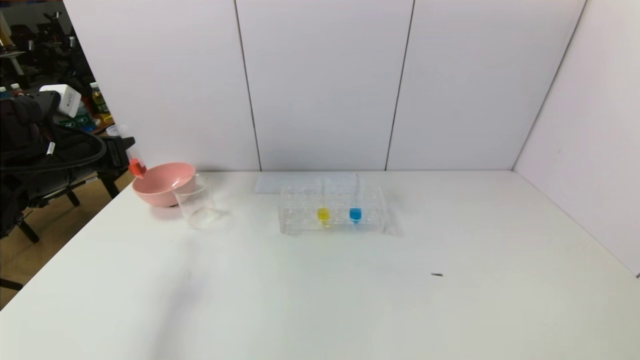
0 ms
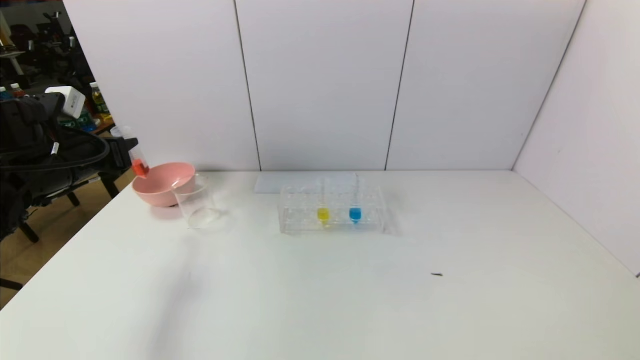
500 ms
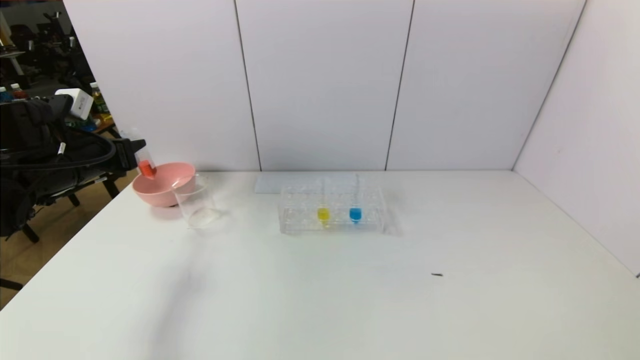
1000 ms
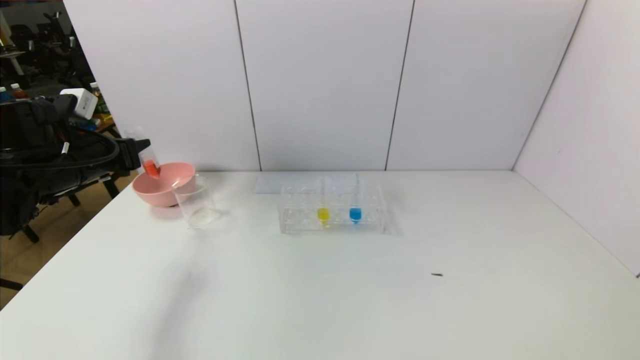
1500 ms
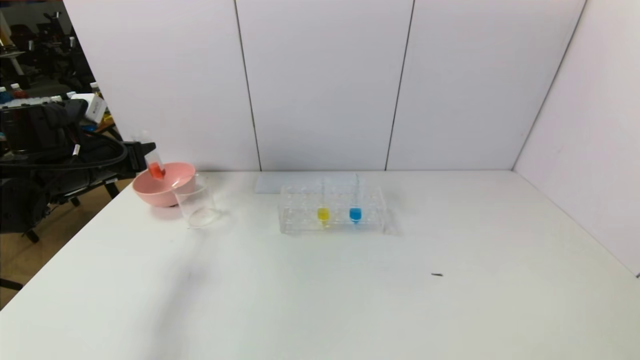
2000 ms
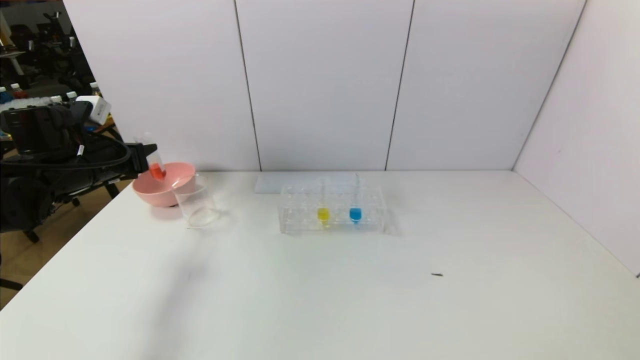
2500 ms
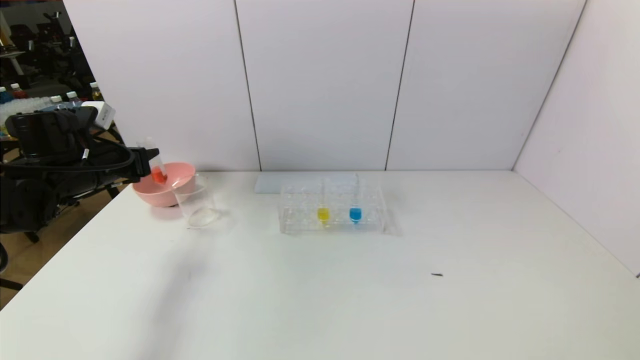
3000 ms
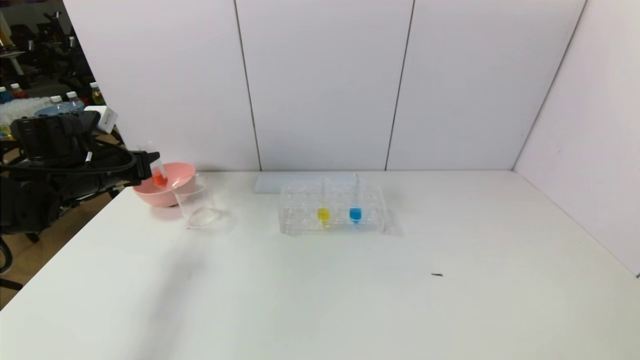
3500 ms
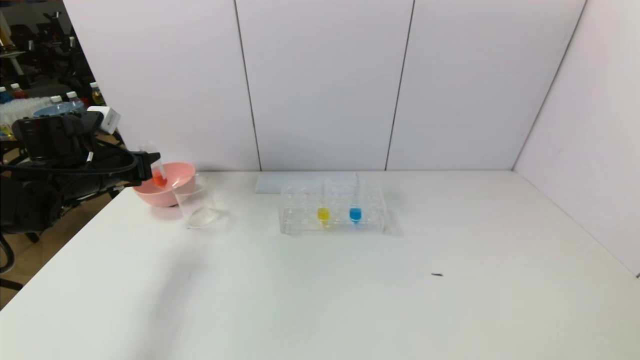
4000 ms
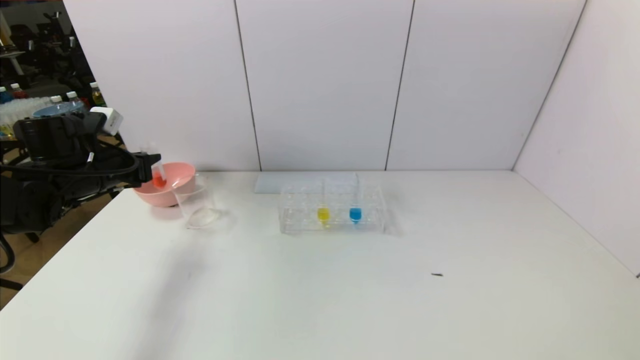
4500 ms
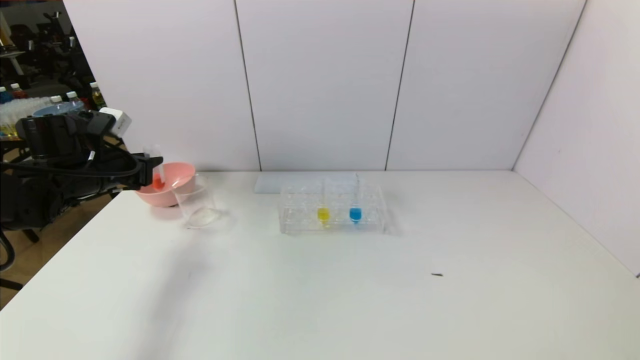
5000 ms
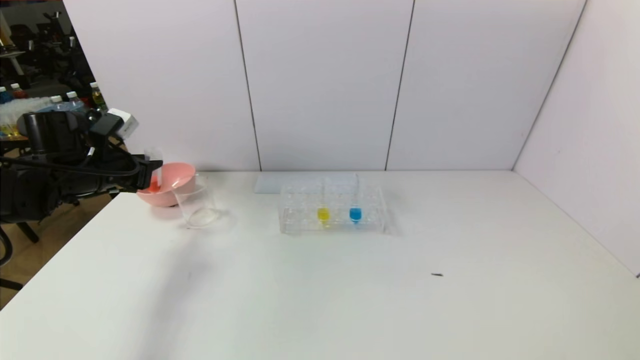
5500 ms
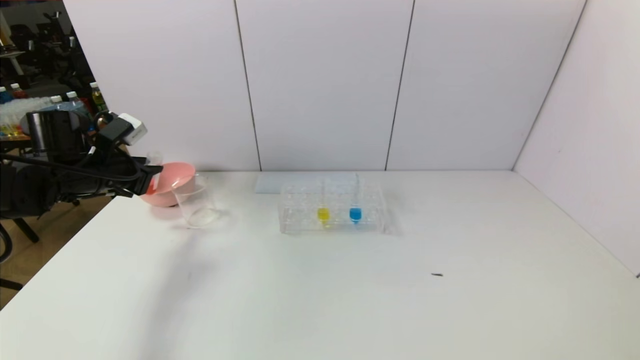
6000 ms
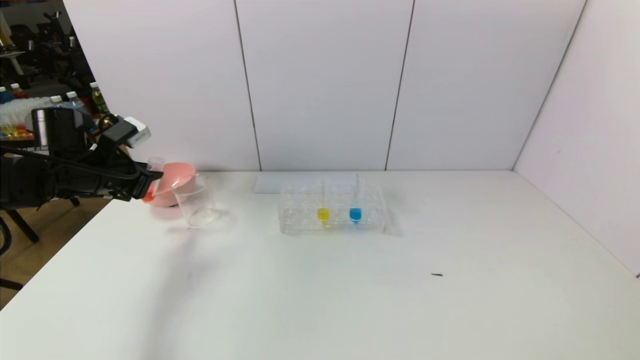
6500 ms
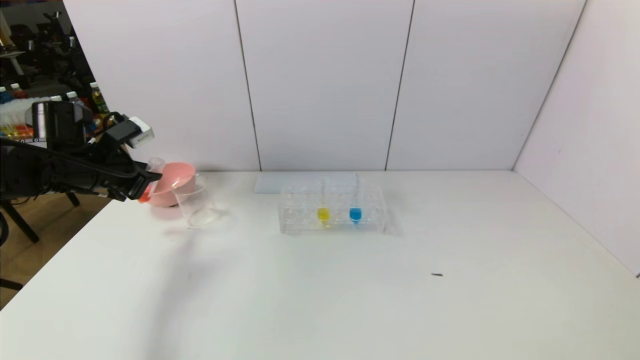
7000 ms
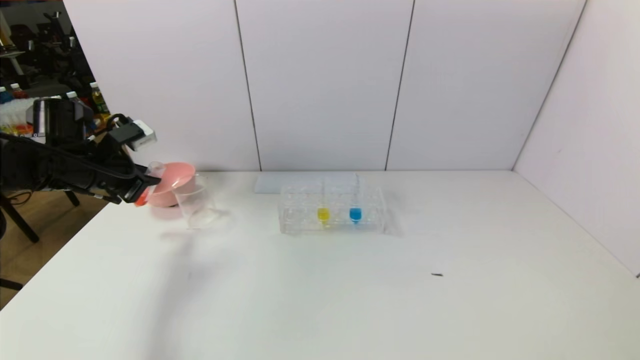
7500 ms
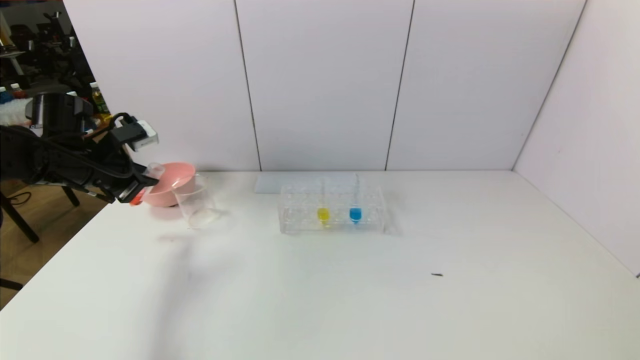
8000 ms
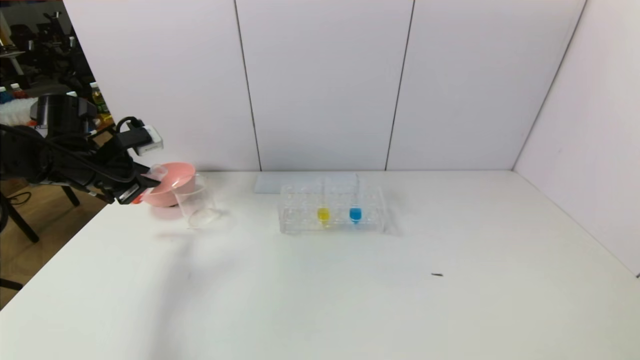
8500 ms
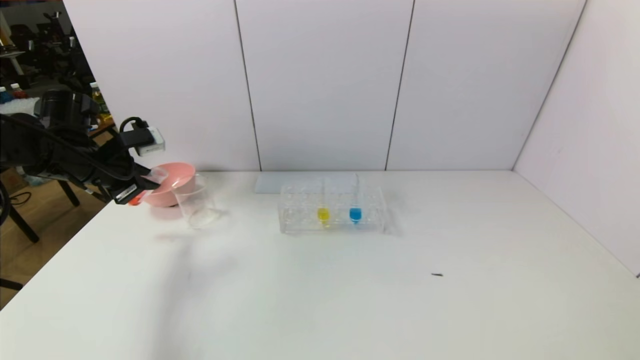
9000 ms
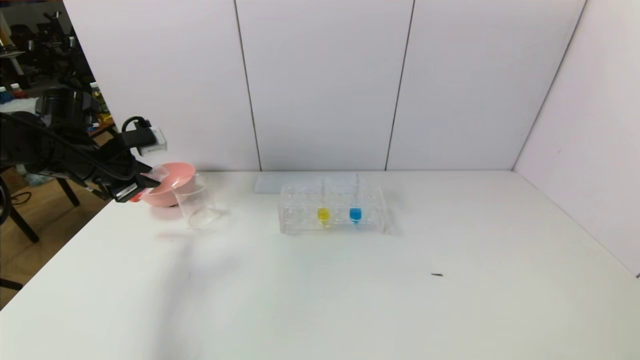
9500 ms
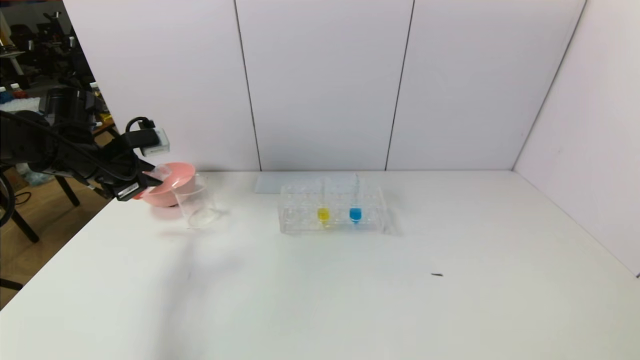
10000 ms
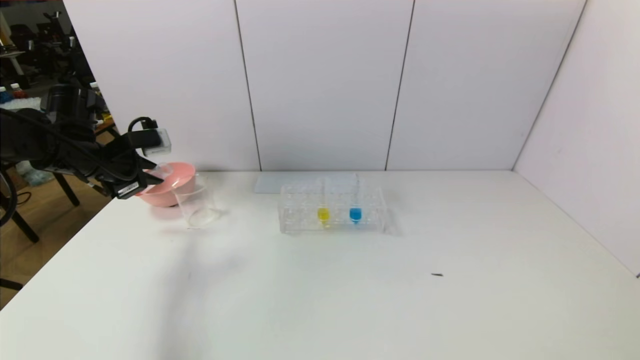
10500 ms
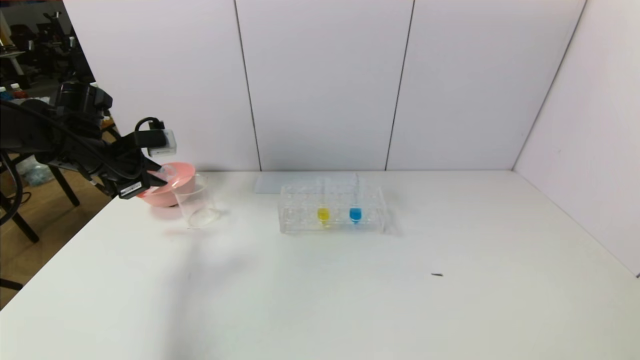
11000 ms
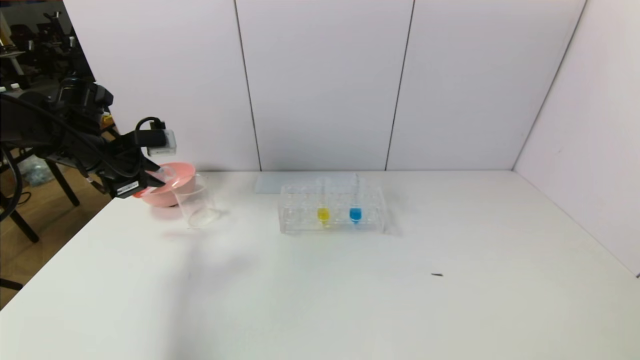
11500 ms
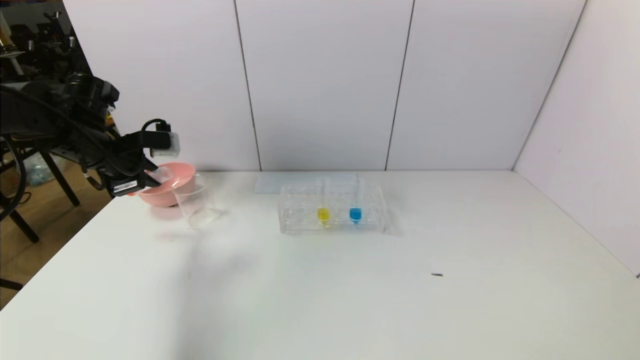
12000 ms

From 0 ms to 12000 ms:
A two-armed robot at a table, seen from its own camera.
Task of the whole recording: pick up the test tube with yellow pigment and the test tube with red pigment by grippers and pour them into the beaker.
From 0 ms to 4000 ms: There are only small adjustments of the grippers.
From 8000 ms to 10000 ms: The grippers move only a little.
From 10000 ms to 12000 ms: There are only small adjustments of the grippers.

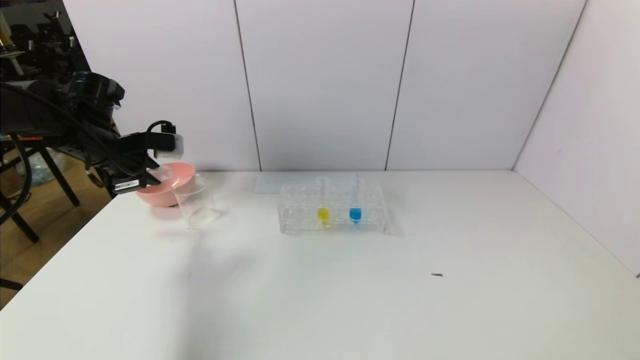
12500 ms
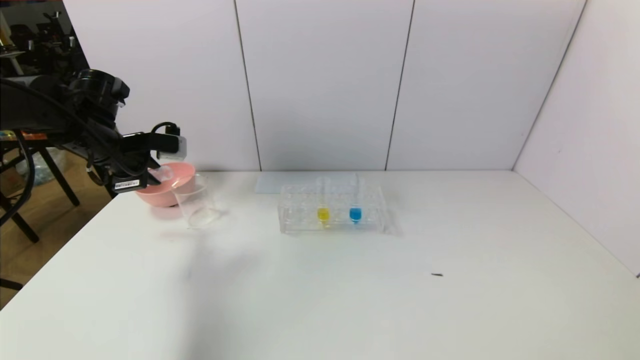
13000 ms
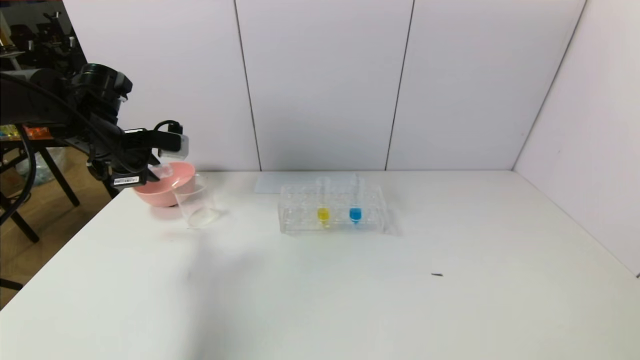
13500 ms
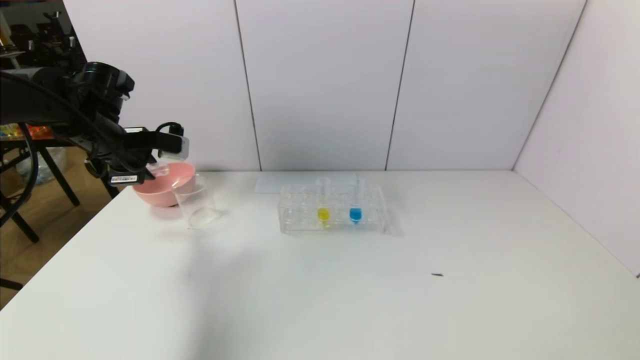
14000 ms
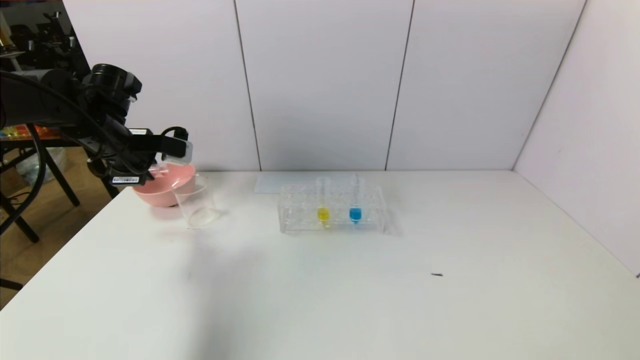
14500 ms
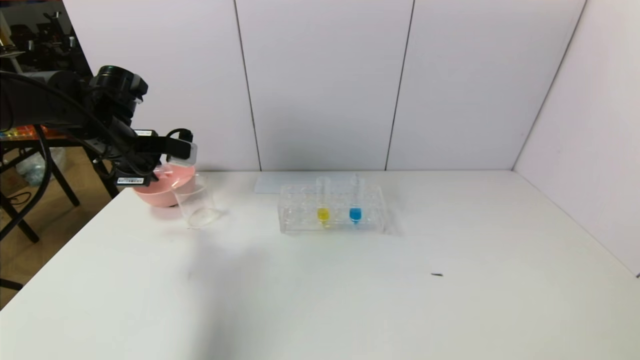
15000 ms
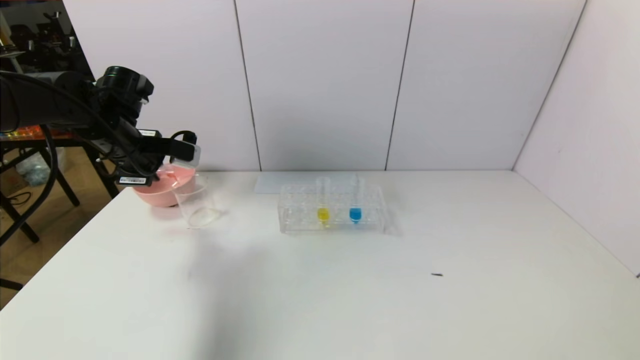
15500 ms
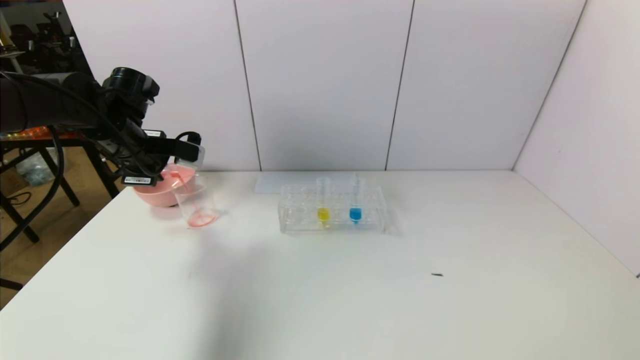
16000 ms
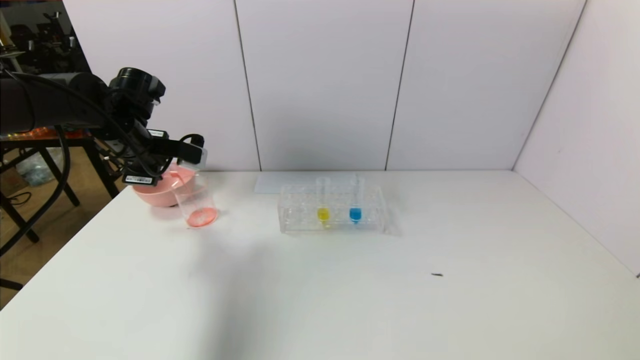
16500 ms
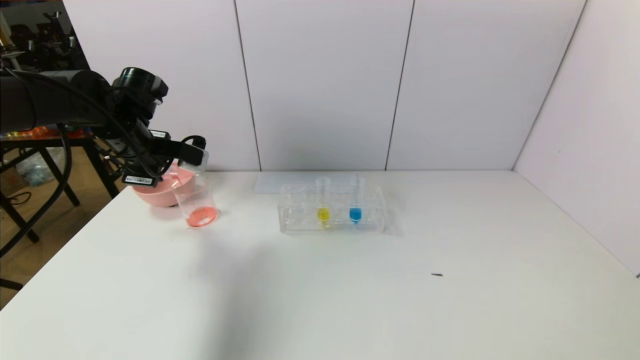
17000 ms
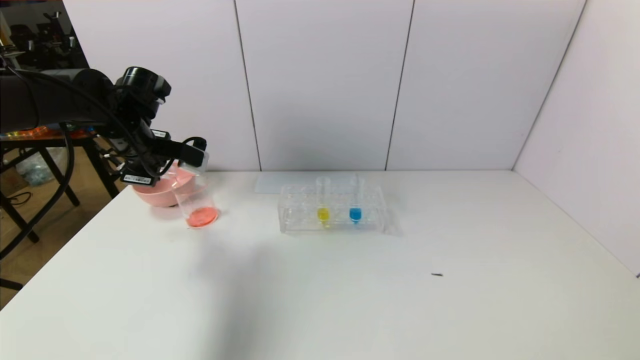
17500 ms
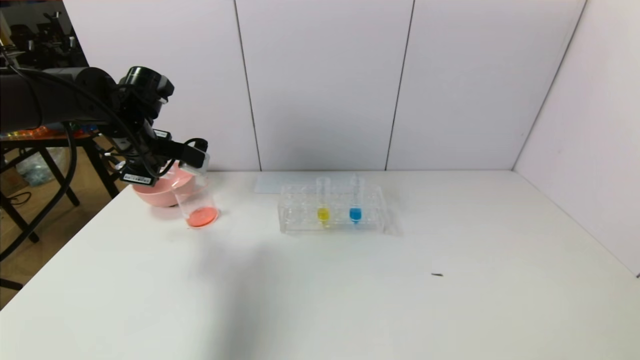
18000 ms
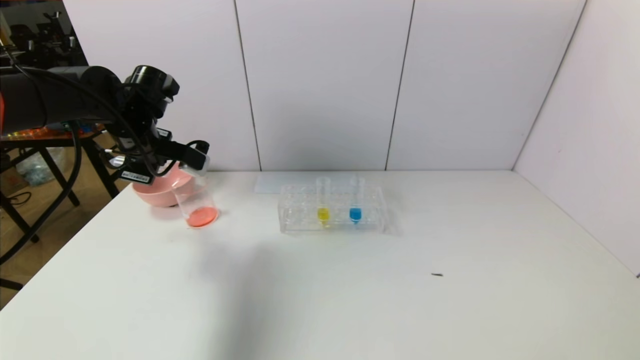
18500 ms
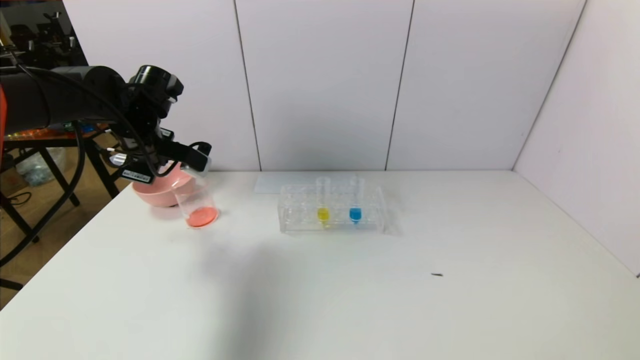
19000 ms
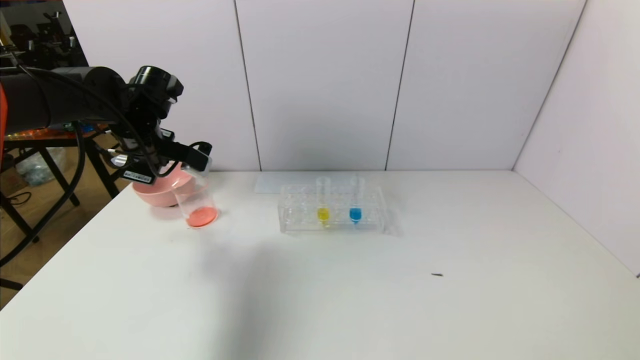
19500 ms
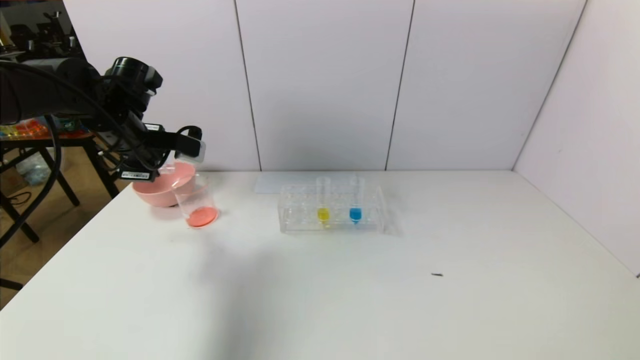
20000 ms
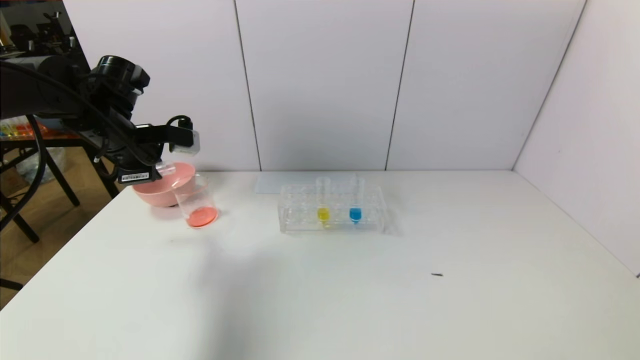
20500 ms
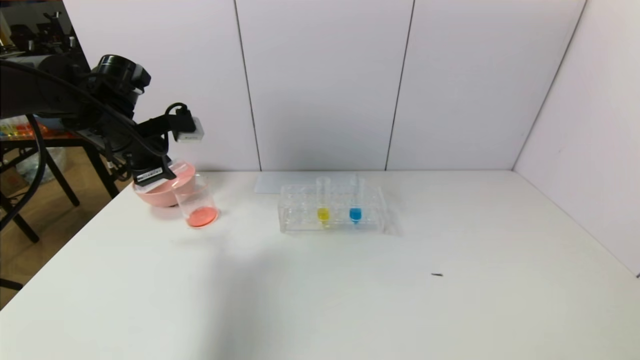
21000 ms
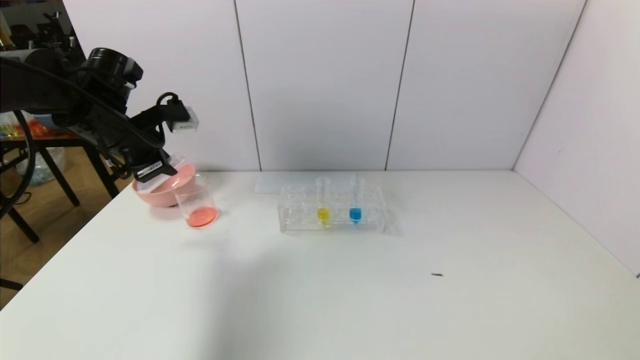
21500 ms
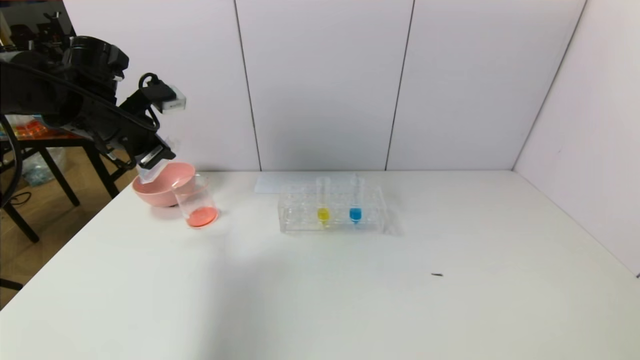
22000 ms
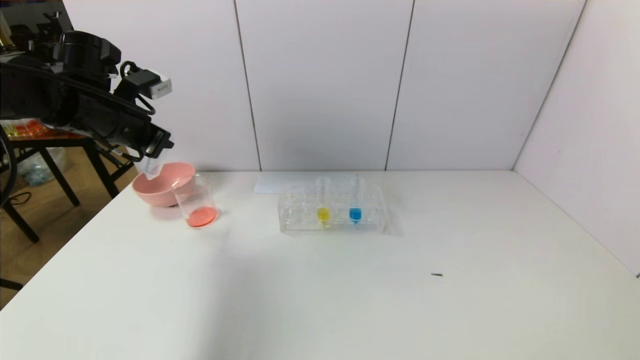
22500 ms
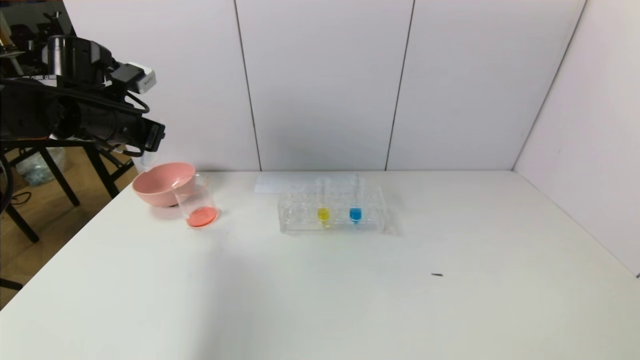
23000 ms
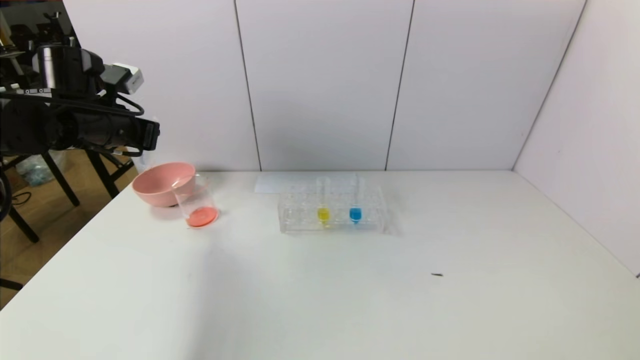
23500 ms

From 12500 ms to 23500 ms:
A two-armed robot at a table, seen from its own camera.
Task of the whole recording: pick up the test tube with yellow pigment and the test tube with red pigment by grippers and pour them into the beaker.
Step, from 12500 ms to 19500 ms: Pour the red reagent into the graduated cylinder with the left gripper.
From 12500 ms to 16000 ms: The grippers make only small movements.
From 16000 ms to 20000 ms: The grippers move only a little.
